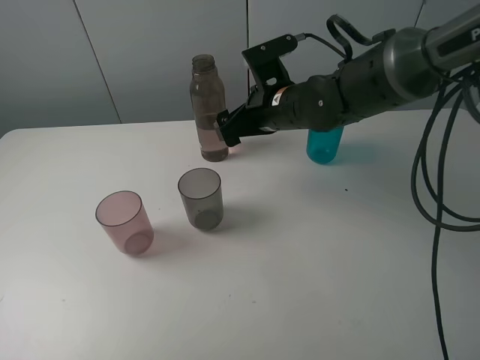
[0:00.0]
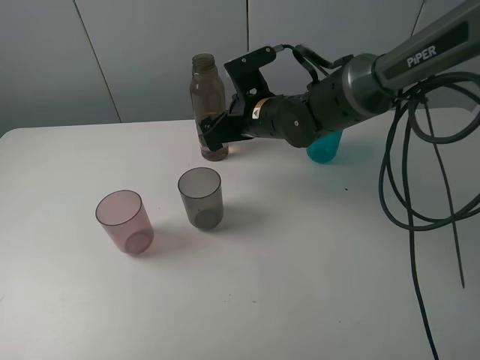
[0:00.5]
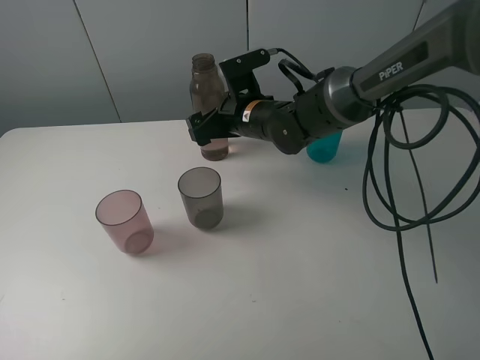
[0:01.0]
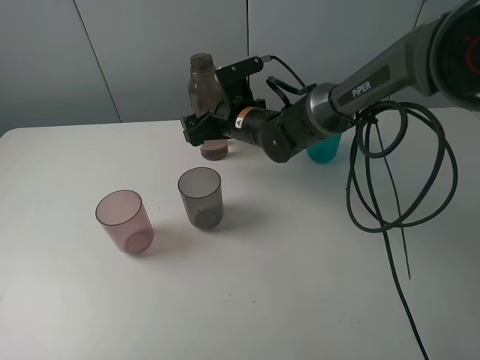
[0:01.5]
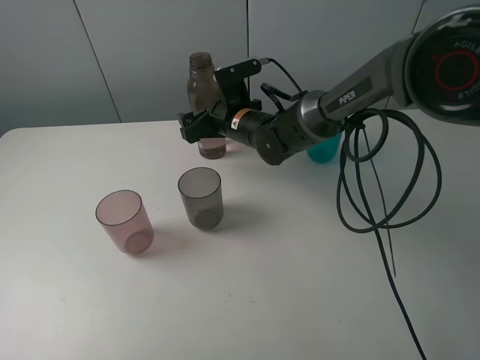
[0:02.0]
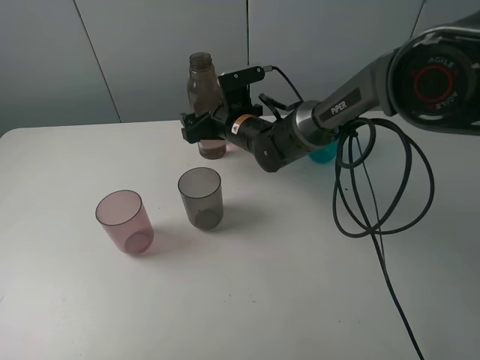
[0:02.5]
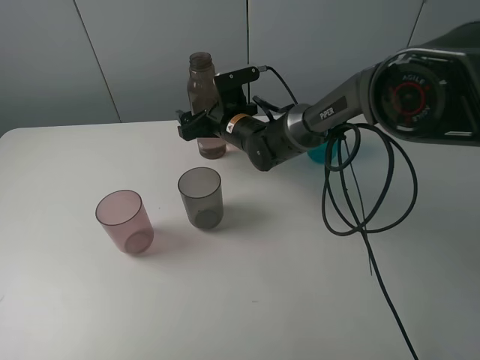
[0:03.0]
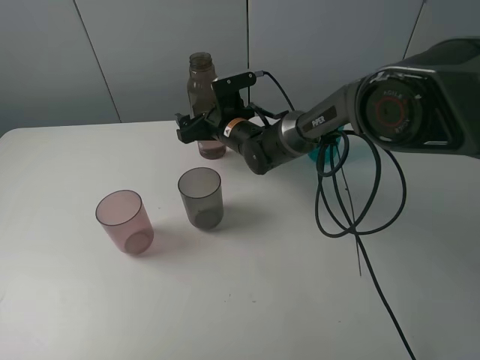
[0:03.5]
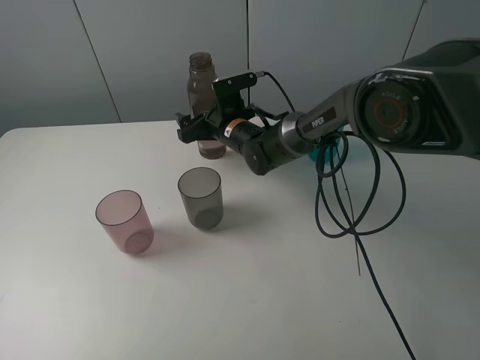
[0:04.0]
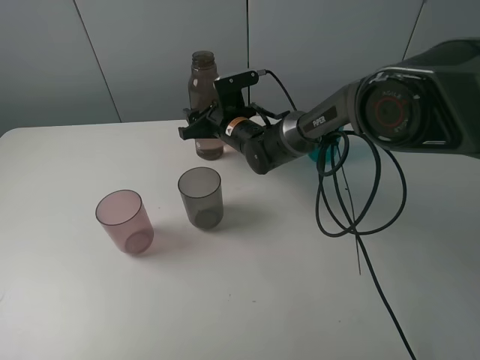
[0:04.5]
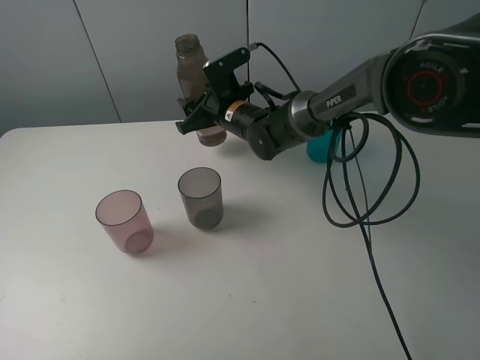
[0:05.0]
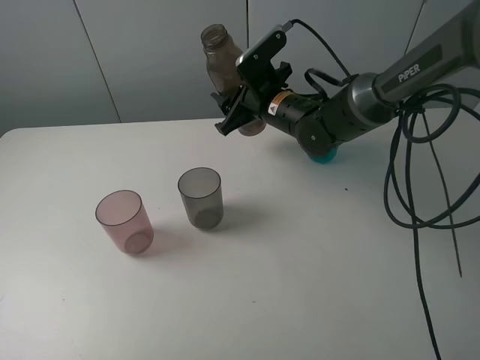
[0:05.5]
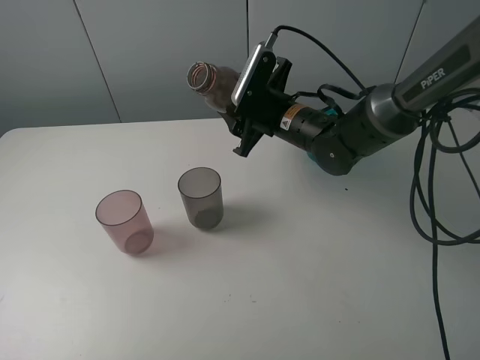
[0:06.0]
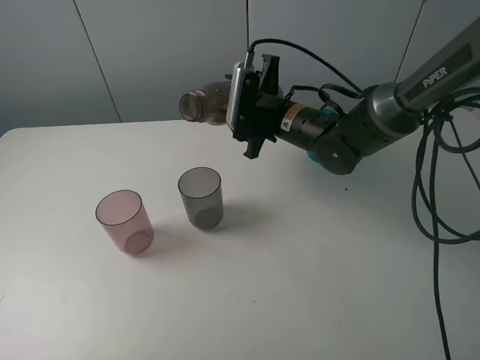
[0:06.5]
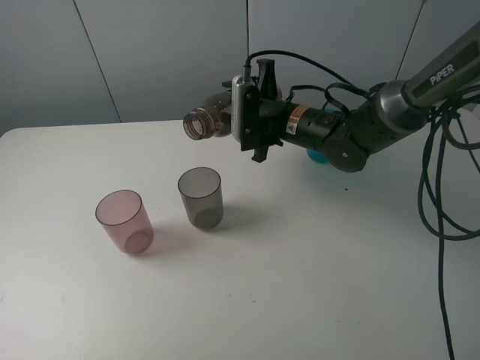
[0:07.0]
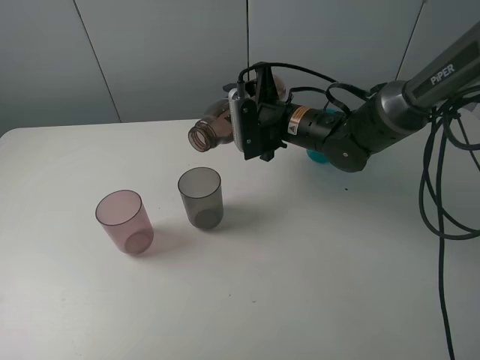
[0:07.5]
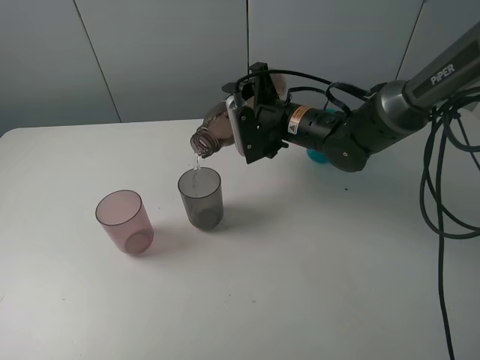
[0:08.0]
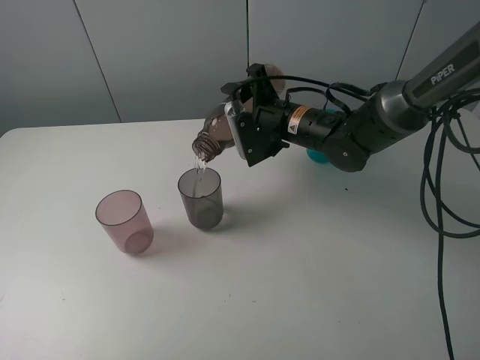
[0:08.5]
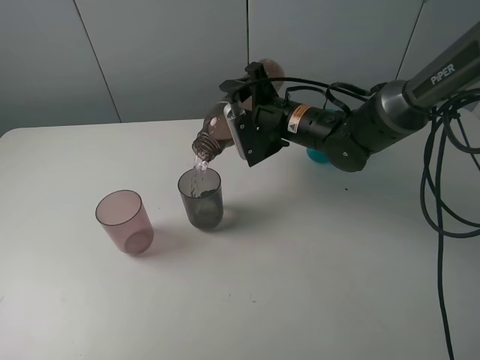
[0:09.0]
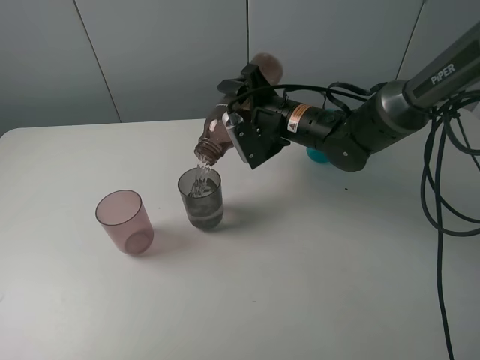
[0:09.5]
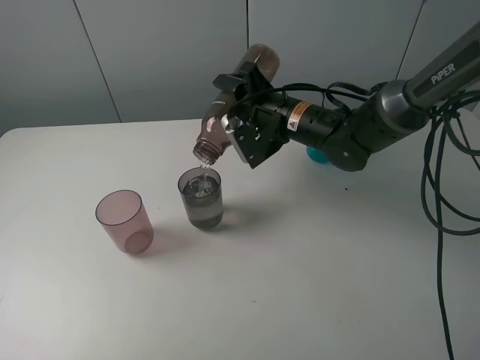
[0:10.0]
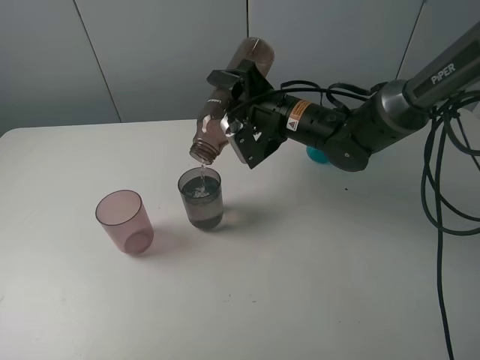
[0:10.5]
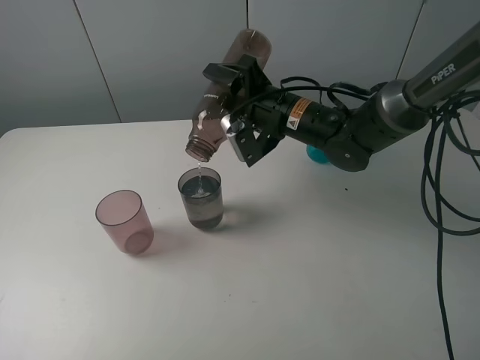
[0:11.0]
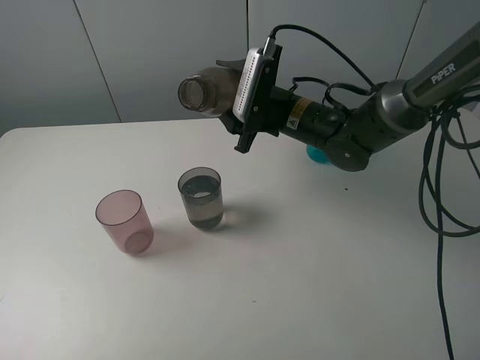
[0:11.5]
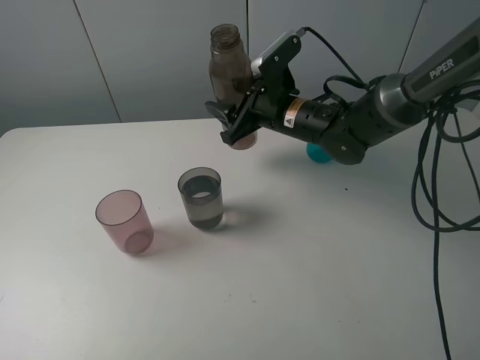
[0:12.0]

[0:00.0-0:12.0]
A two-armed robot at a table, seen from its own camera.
Task of the whole recording: pick up the bottle filled with water and pour water into the middle cup of the three cups.
Step, 0:00.0 to 0:04.0: Grasp the brown bottle with the right gripper.
Step, 0:04.5 to 0:11.0: Pour water from brown bottle to grey cup with the right gripper.
0:00.0 to 0:02.0: The right gripper is displaced downward and to the left by roughly 10 cm.
0:02.0 to 0:04.0: The grippers move only a little.
0:04.0 to 0:06.0: The right gripper is displaced to the right, upward and backward by about 10 cm, and closes.
0:08.0 to 0:10.0: The grippers move only a little.

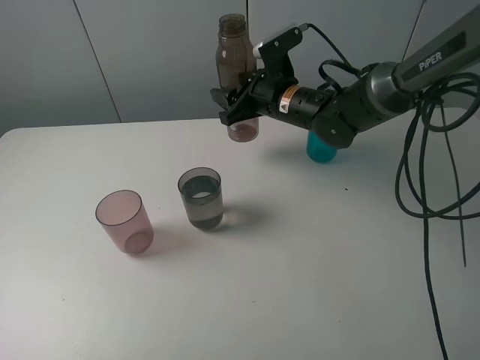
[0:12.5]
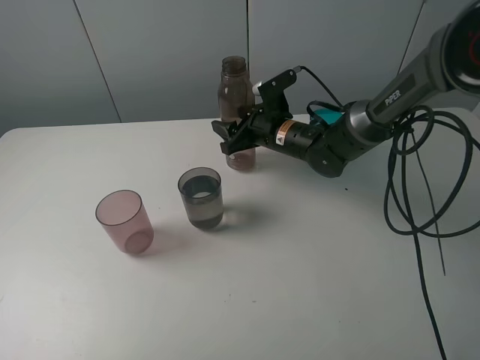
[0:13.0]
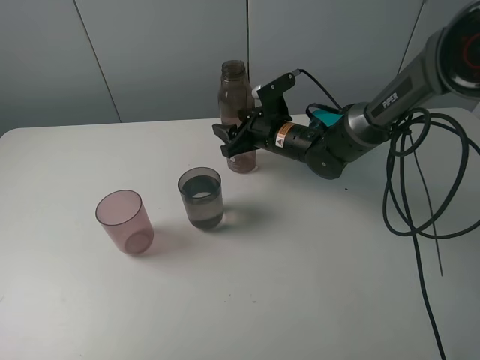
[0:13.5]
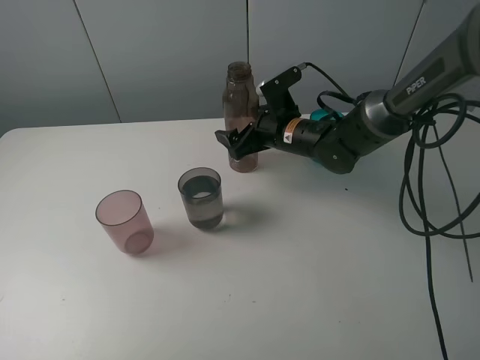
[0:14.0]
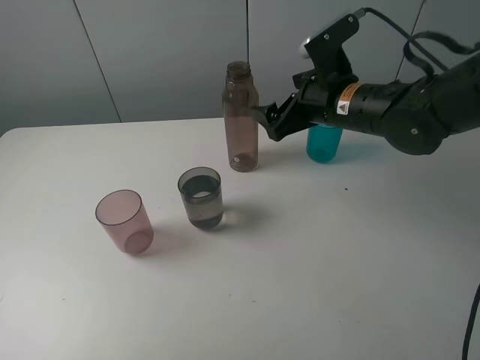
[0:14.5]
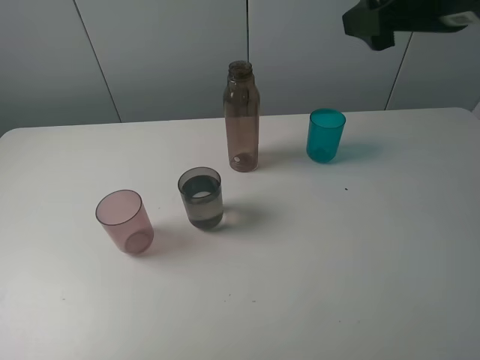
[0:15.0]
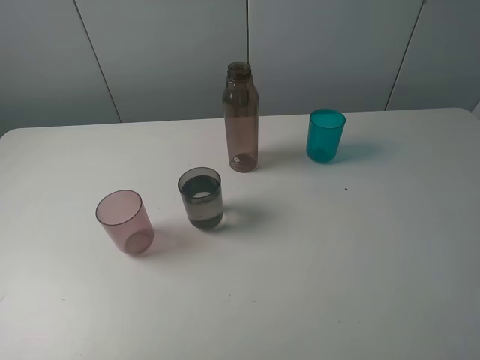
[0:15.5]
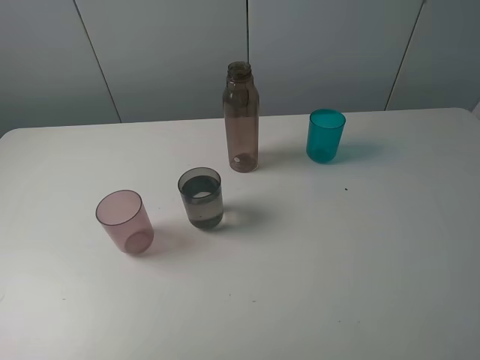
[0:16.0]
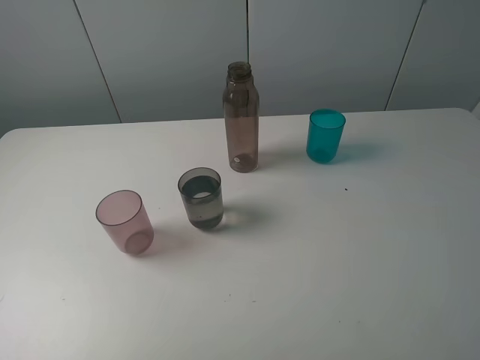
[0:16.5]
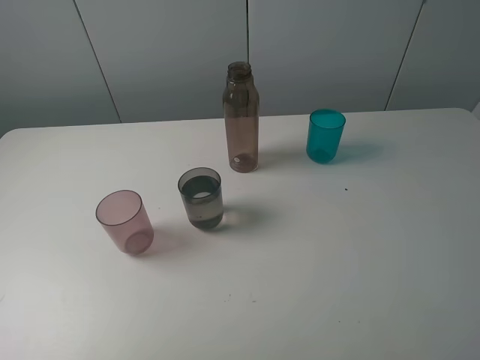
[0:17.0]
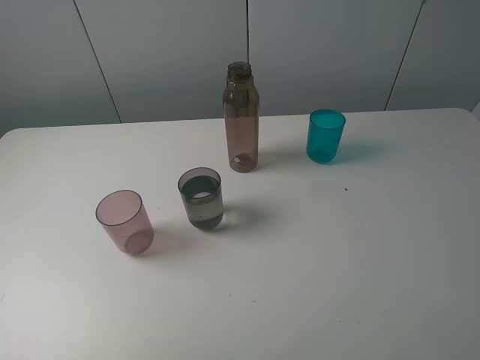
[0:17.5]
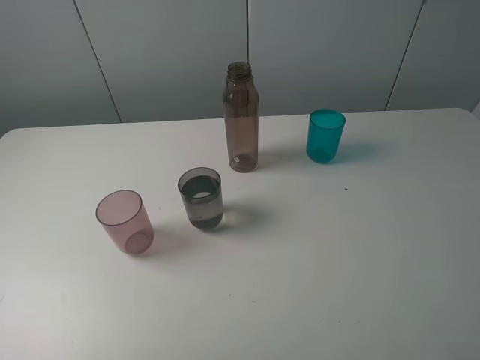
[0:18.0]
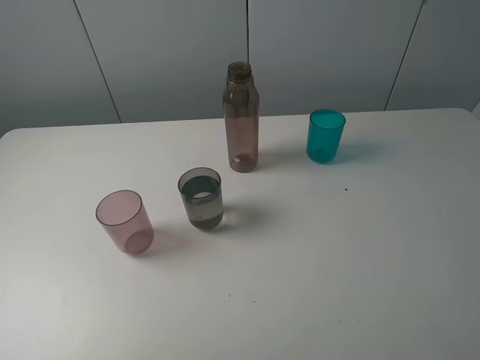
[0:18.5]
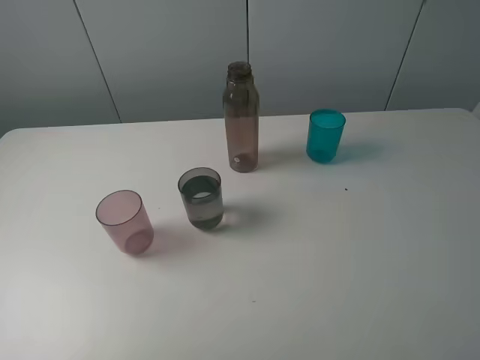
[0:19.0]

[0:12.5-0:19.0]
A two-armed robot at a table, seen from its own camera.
Task of the whole recording: pick up the bottle filled with water and pour water into the middle cup of the three cups.
Step, 0:12.5 to 0:15.5: Place the brown bottle with the right gripper.
0:12.5 to 0:14.5: The right gripper travels backward, to the right and upward by approximately 10 cm, and opens up.
0:14.5 to 0:17.0: The right gripper moves backward and to the right, approximately 35 cm.
